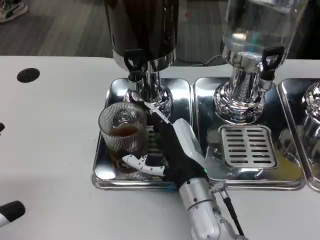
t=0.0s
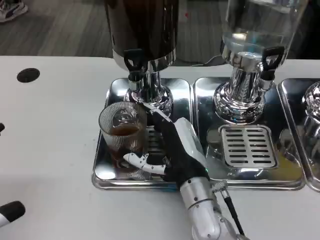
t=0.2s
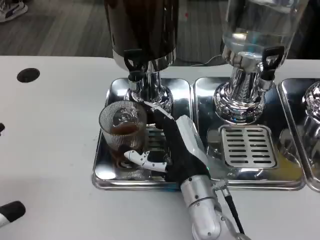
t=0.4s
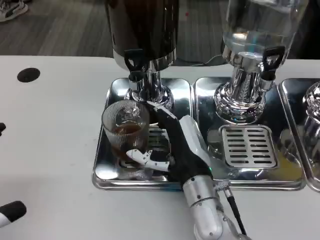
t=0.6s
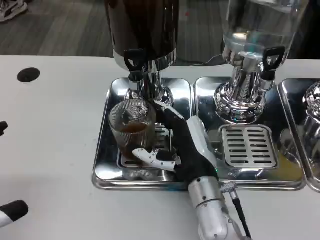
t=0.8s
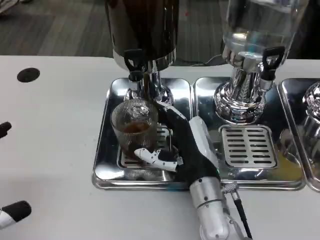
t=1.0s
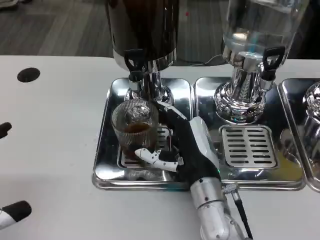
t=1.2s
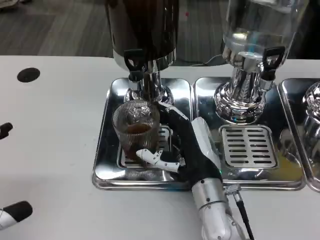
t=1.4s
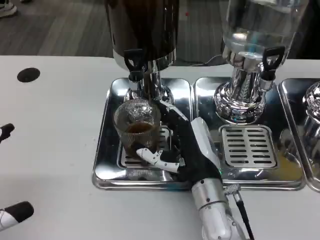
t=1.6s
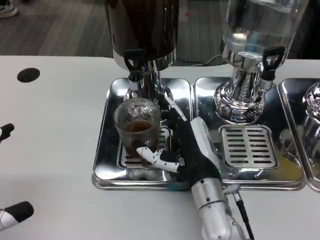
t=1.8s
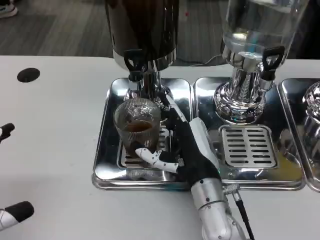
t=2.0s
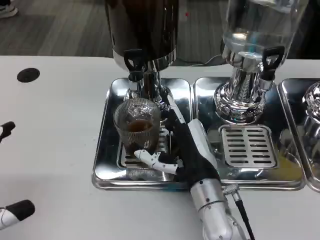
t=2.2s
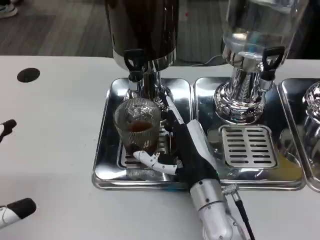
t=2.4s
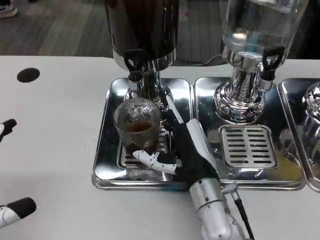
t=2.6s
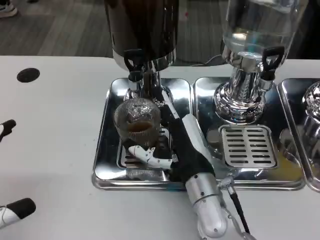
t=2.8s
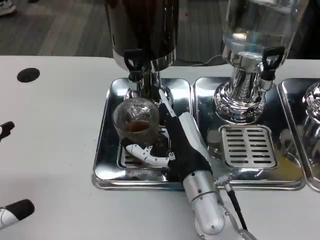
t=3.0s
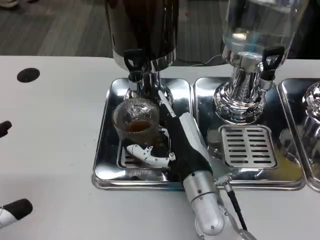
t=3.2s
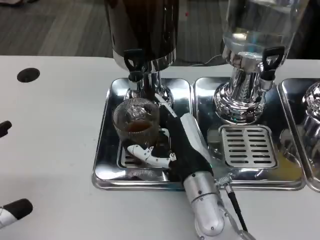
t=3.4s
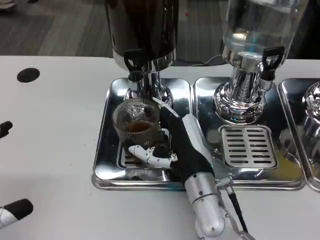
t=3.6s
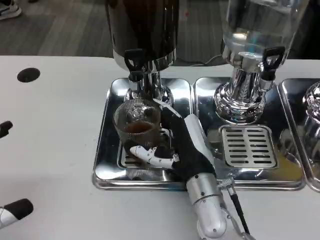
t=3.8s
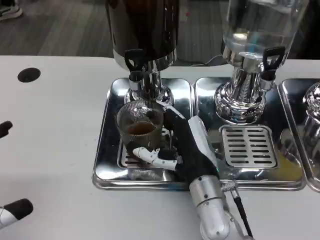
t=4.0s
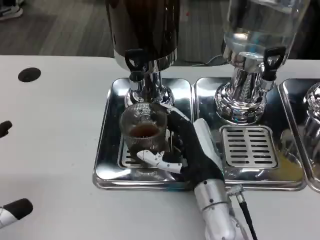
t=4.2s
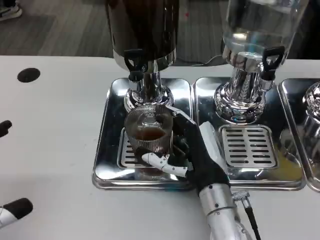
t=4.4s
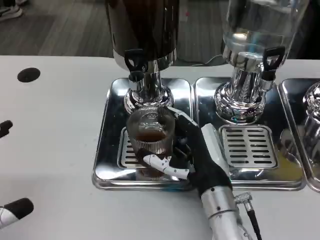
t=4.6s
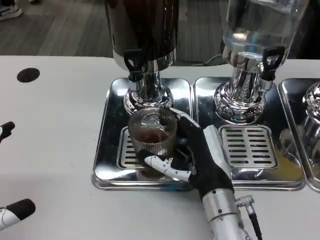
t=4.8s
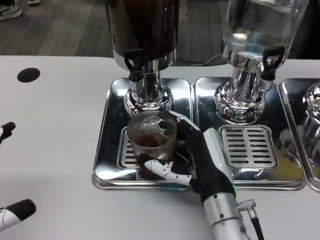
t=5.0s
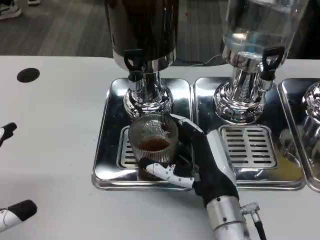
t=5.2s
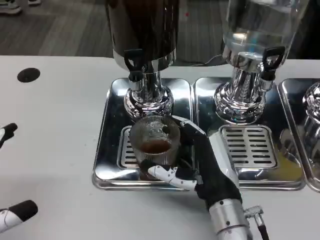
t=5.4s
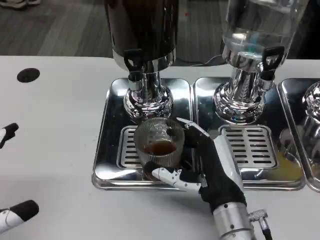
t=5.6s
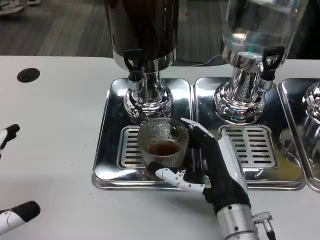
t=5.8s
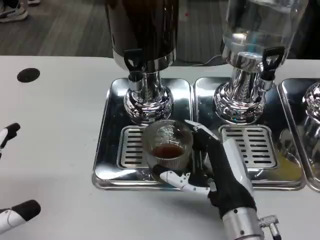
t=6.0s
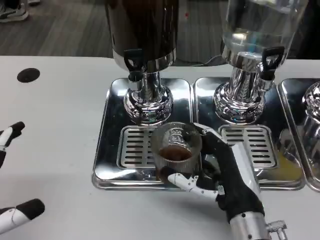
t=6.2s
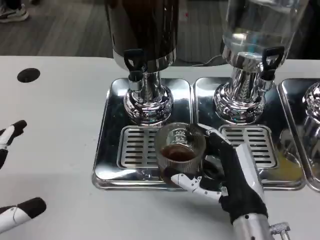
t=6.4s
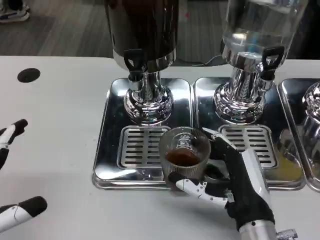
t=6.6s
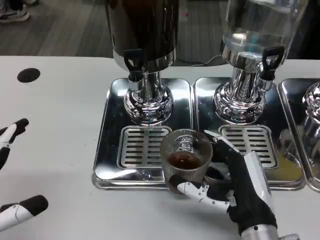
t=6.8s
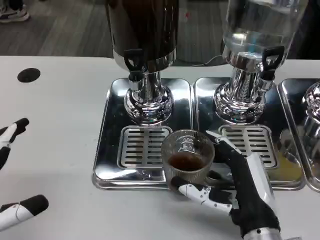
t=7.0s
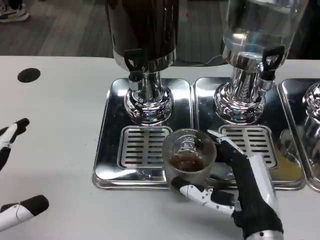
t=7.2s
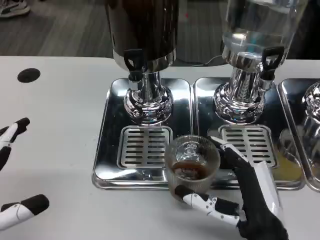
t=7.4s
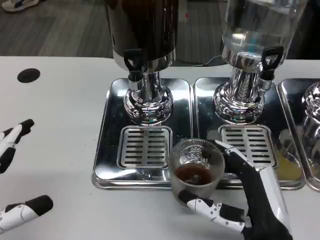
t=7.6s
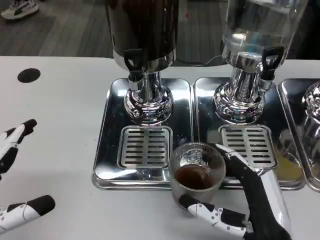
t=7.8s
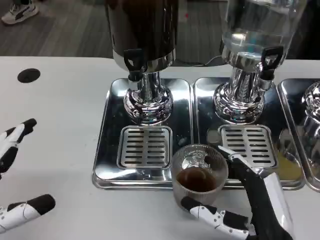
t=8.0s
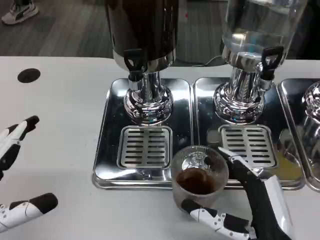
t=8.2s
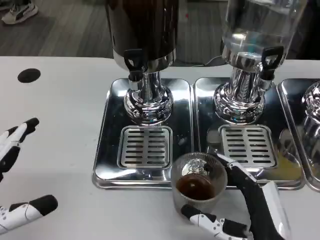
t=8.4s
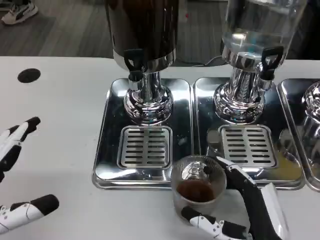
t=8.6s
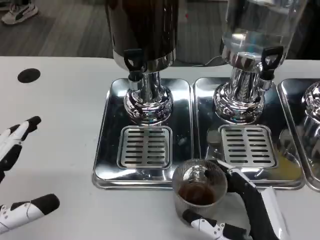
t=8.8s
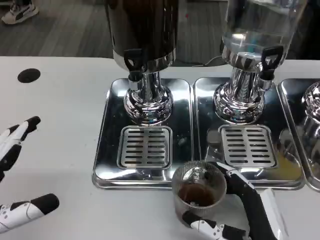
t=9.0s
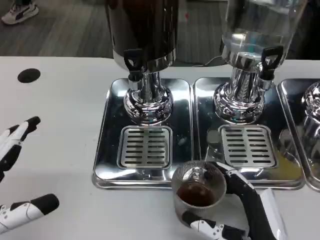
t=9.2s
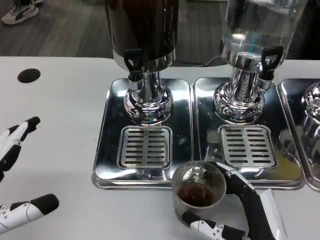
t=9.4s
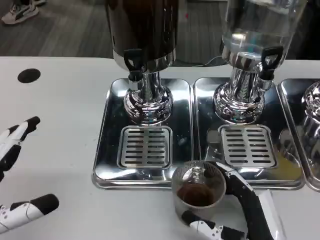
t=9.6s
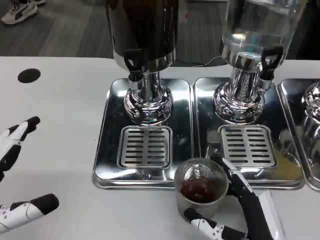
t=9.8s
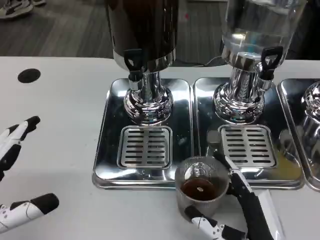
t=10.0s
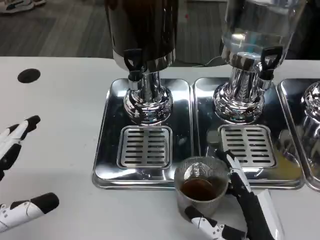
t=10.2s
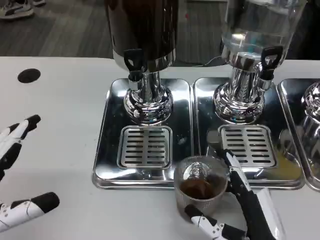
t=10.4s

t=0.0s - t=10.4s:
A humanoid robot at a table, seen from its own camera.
Task of the whole recording: Grasp the cup under the faucet to collect the drink, then remove the cup.
t=0.0s - t=4.4s: There are only small adjustments of the hands.
t=4.4s - t=6.0s: The right hand changes place by roughly 5 cm.
t=6.0s - t=7.4s: The right hand moves some 5 cm.
t=7.4s - t=9.0s: The hands move only a little.
t=9.0s - t=10.4s: The two hands keep their place.

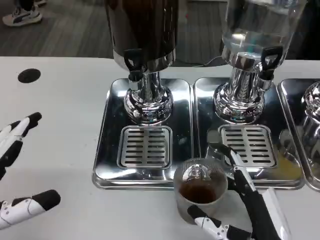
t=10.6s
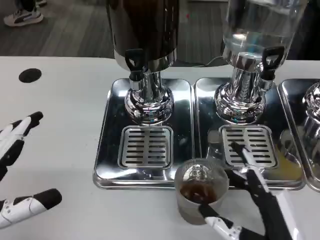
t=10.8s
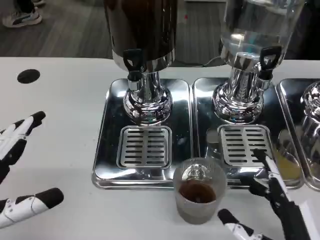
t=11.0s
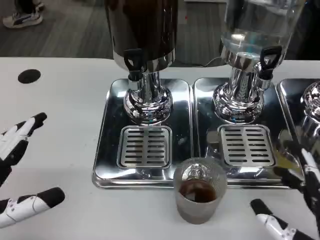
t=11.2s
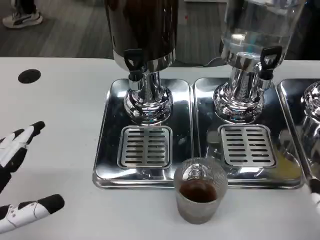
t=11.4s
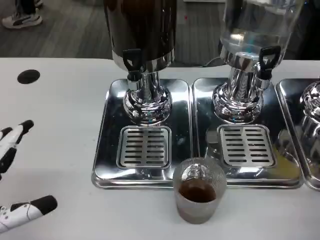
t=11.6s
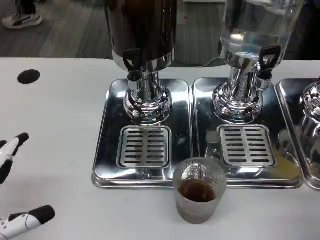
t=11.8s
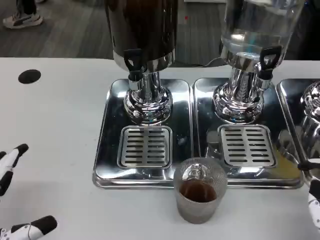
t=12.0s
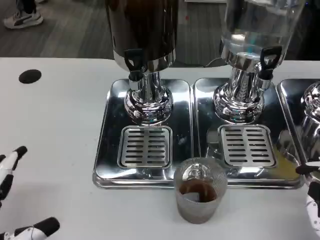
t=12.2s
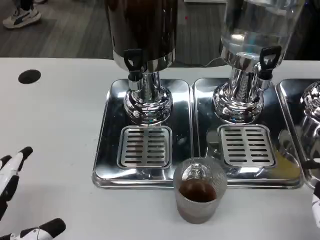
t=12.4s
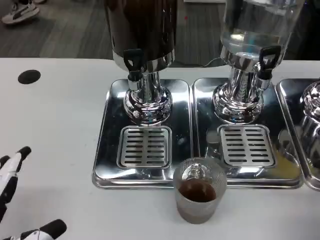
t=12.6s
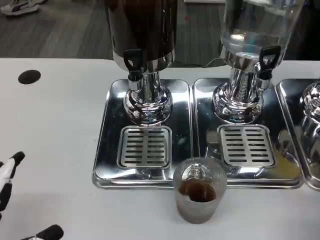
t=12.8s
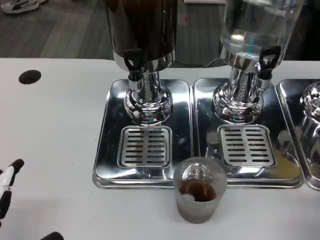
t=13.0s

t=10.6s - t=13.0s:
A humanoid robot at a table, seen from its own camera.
Task of the whole recording: Grasp the cup under the faucet to collect the drink, then remove the cup.
t=10.6s - t=11.8s: The right hand is displaced to the right and upward by about 10 cm.
t=11.8s - t=13.0s: The left hand moves backward, approximately 5 cm.

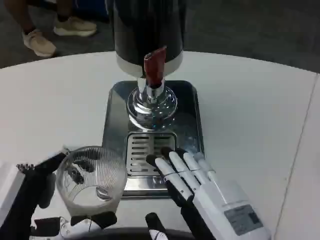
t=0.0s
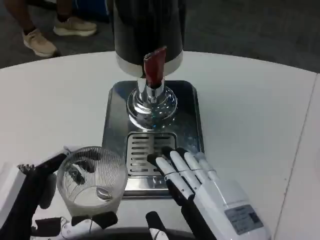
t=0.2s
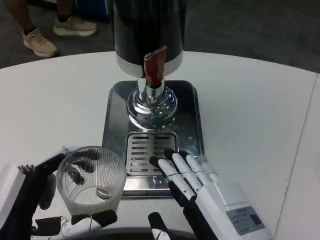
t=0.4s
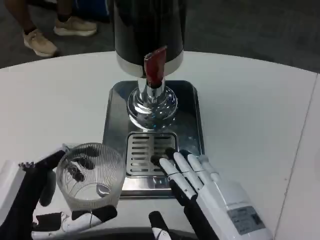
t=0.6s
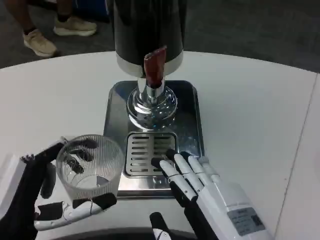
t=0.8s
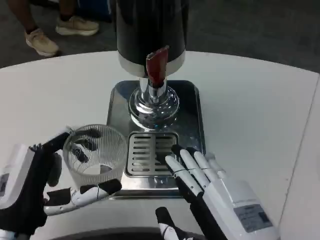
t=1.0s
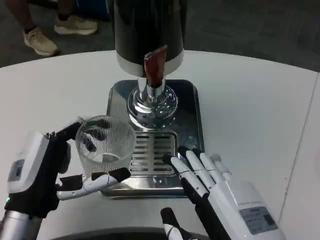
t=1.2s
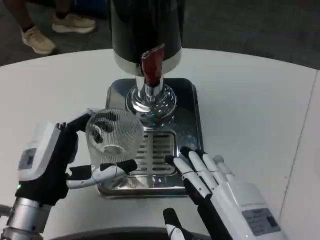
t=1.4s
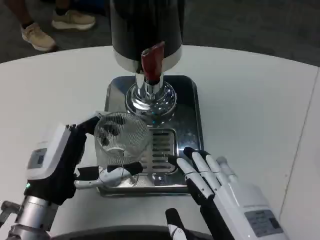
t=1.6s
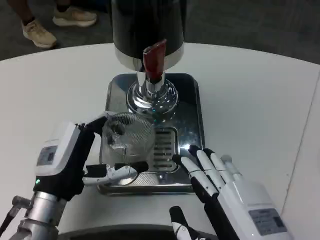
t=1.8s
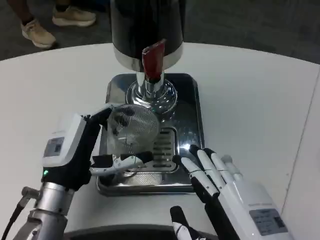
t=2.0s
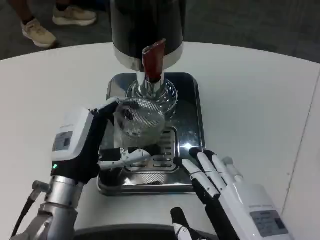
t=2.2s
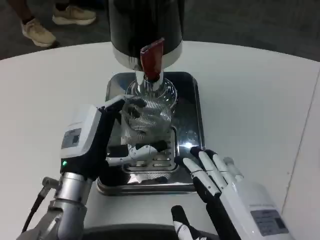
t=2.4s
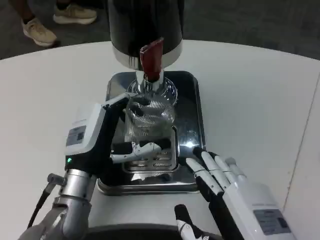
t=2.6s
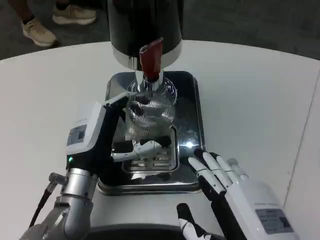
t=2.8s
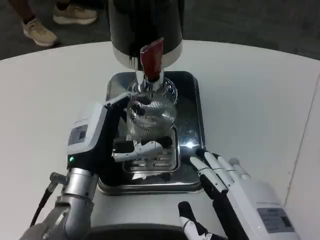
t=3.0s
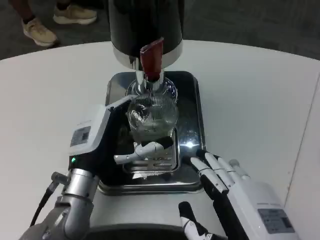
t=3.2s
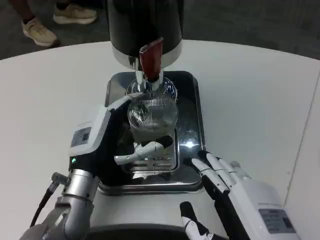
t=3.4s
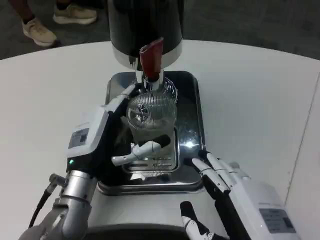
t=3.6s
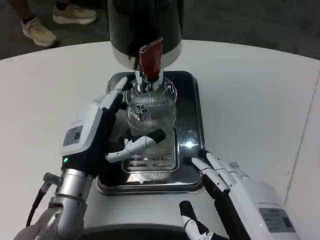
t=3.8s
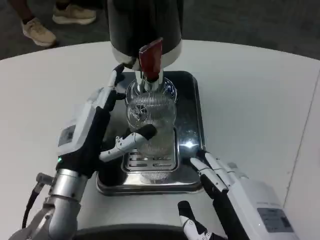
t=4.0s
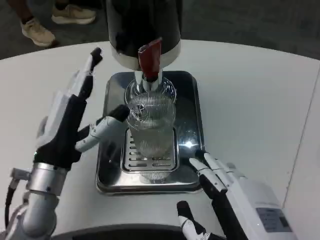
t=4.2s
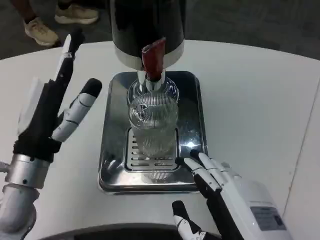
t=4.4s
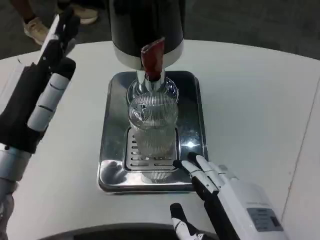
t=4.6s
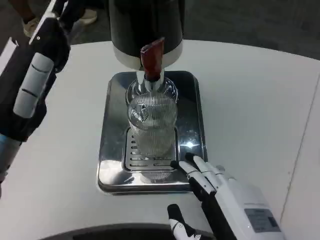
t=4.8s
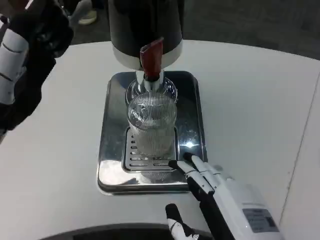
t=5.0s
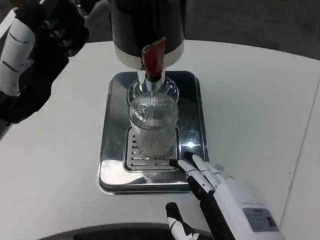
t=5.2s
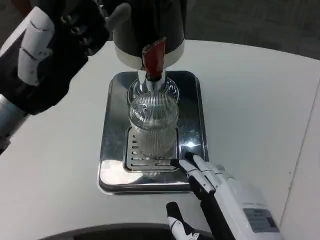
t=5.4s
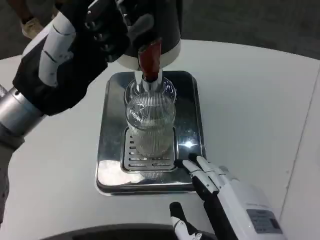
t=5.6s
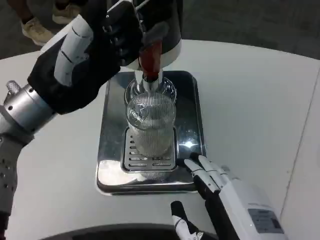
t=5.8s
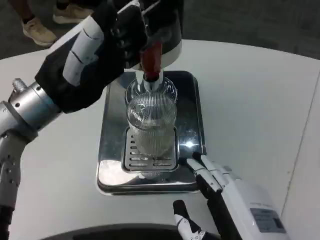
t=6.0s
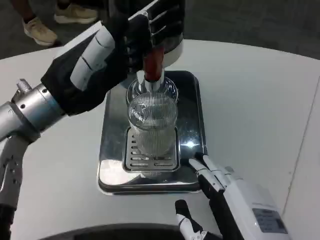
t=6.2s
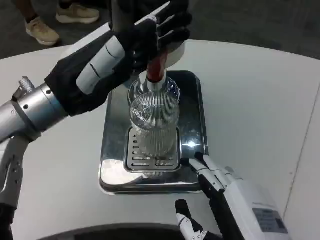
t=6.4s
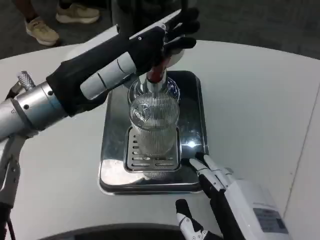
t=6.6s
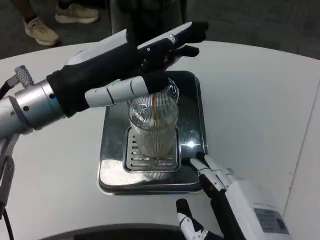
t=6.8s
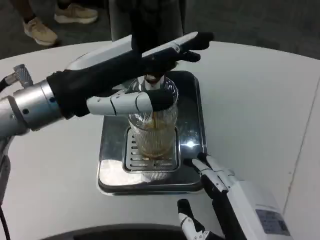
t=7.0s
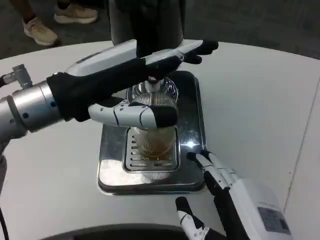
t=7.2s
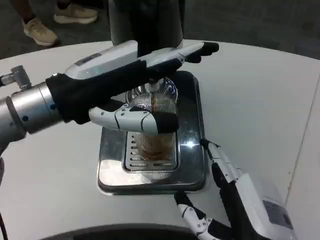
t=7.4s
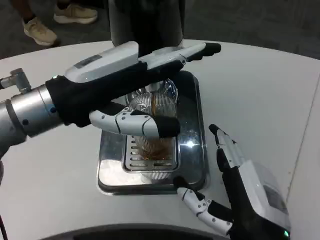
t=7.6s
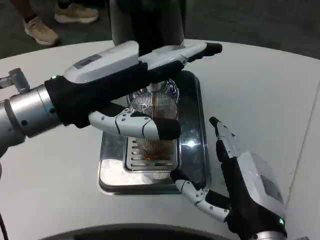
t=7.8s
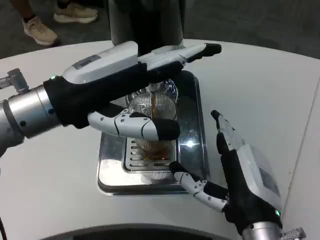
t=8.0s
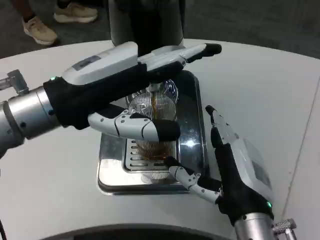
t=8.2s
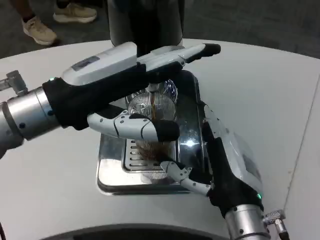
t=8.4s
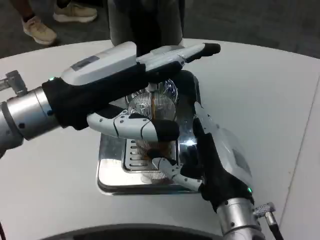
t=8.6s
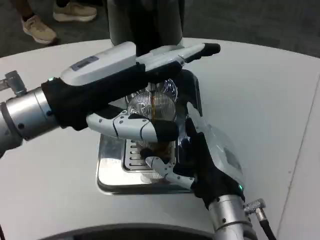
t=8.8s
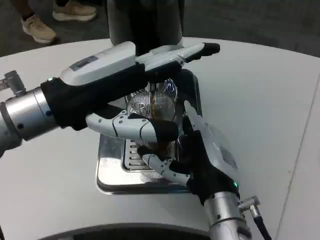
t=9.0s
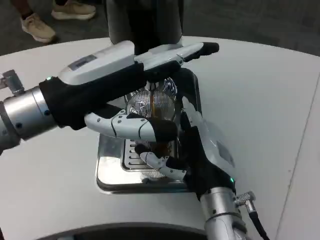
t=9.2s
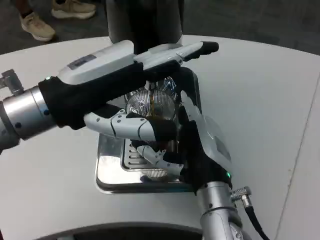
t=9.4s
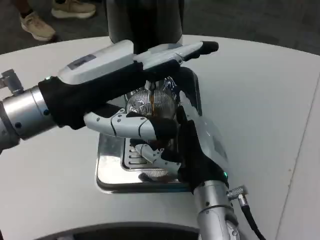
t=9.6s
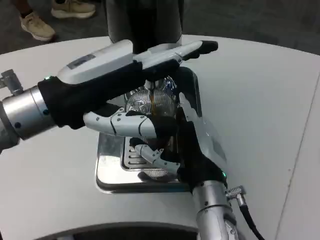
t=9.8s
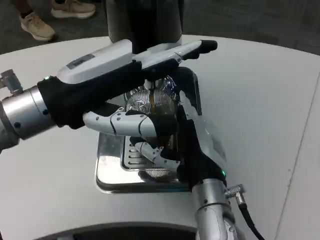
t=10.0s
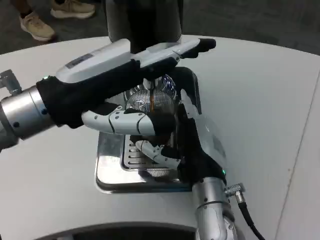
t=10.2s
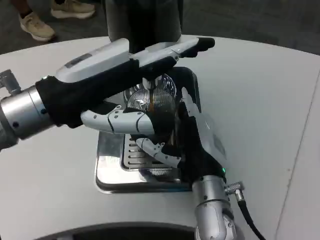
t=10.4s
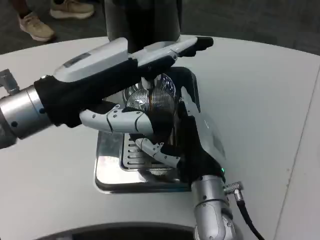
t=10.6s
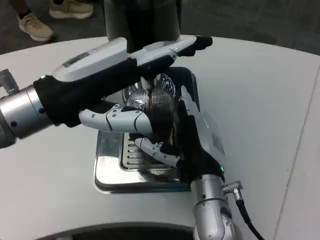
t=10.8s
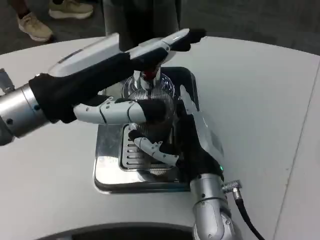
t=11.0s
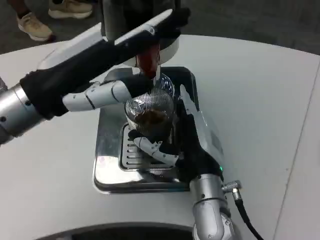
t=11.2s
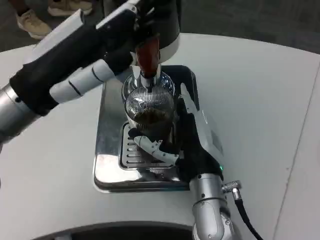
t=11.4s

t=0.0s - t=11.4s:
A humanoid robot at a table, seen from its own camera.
Task of the whole recording: Grasp the cup under the faucet to collect the drink, then remove the cup.
t=0.0s - t=1.4s: The left hand is displaced forward by approximately 10 cm.
t=1.4s - t=2.8s: The left hand travels to the right and forward by about 10 cm.
t=2.8s - t=4.2s: The left hand moves some 5 cm.
t=4.2s - t=5.6s: The left hand travels upward by approximately 15 cm.
t=7.2s - t=8.6s: The right hand travels forward by approximately 10 cm.
